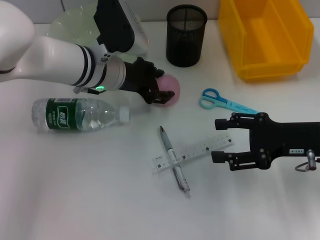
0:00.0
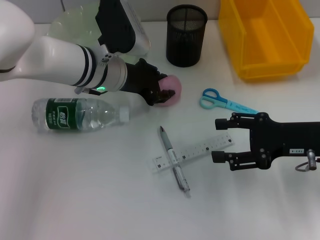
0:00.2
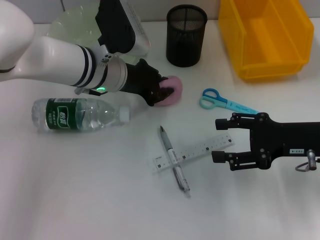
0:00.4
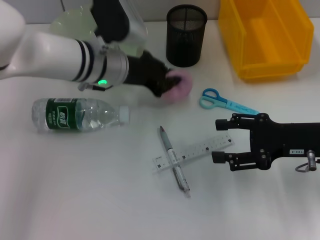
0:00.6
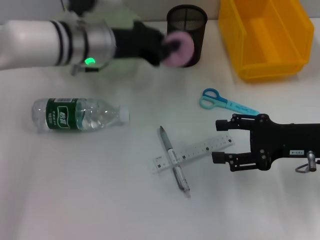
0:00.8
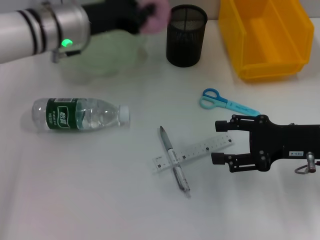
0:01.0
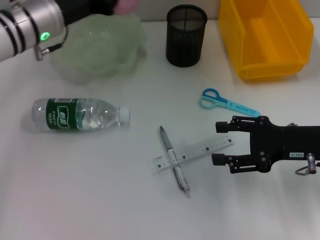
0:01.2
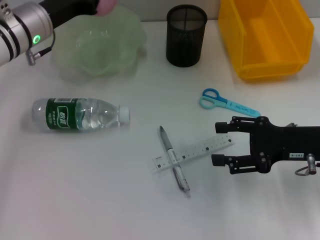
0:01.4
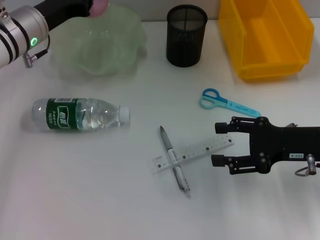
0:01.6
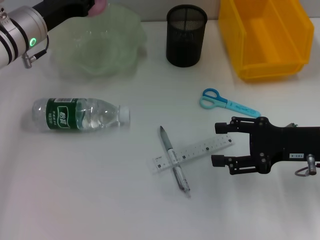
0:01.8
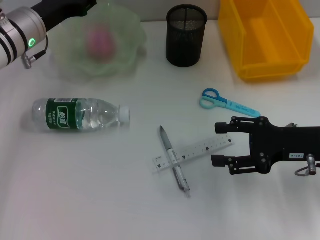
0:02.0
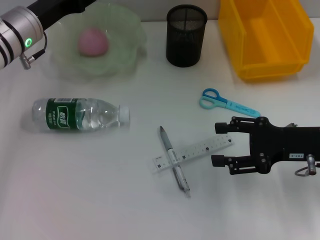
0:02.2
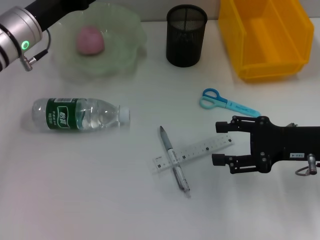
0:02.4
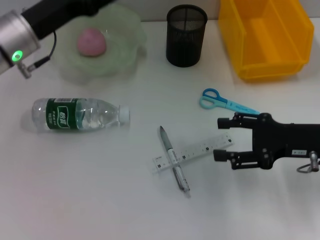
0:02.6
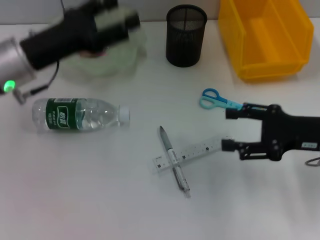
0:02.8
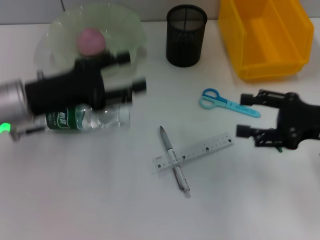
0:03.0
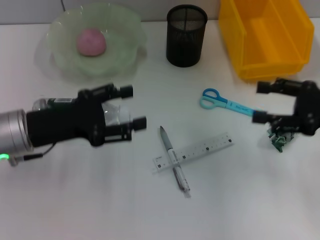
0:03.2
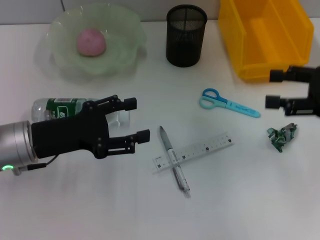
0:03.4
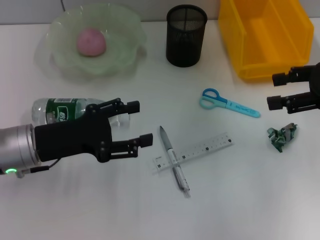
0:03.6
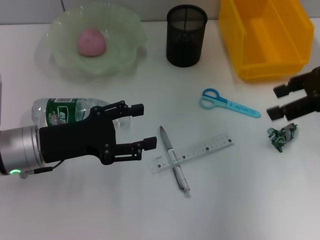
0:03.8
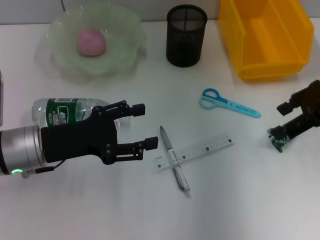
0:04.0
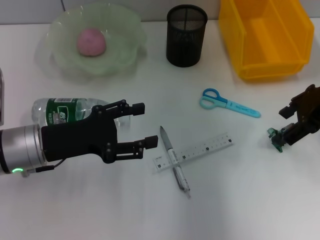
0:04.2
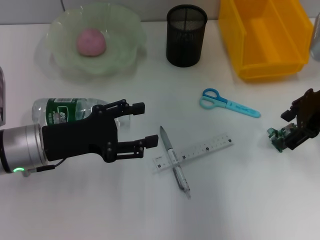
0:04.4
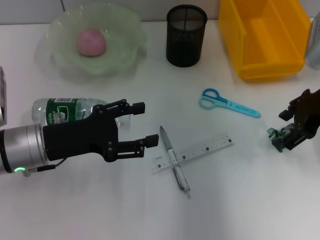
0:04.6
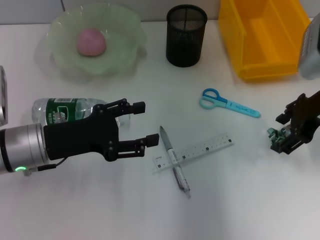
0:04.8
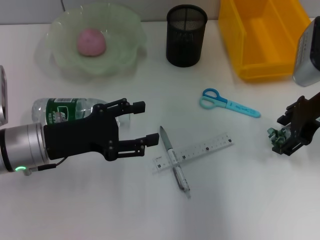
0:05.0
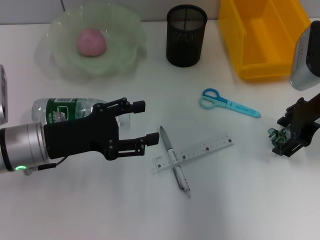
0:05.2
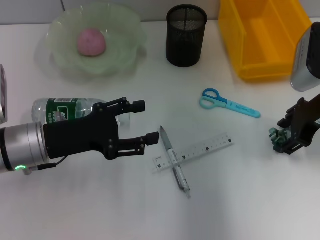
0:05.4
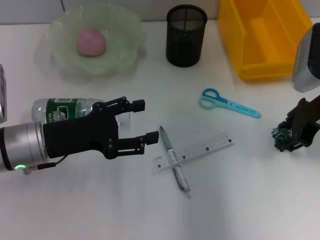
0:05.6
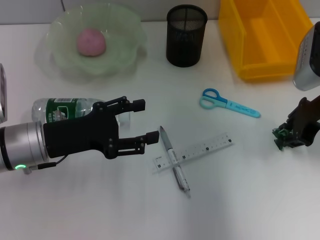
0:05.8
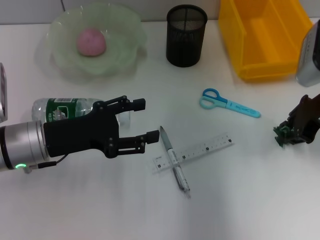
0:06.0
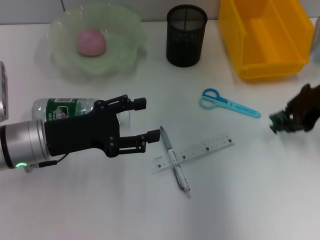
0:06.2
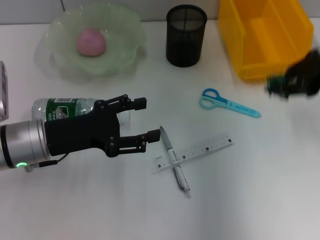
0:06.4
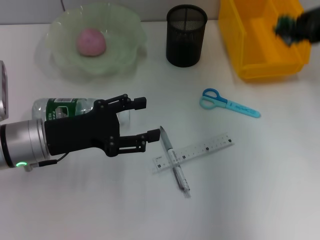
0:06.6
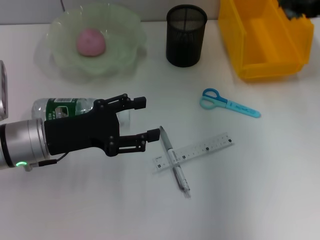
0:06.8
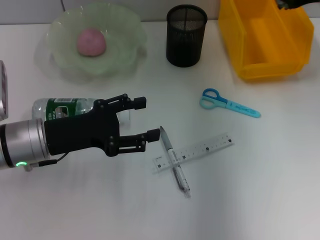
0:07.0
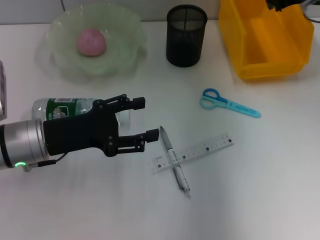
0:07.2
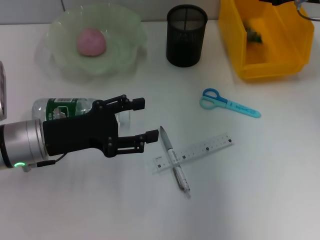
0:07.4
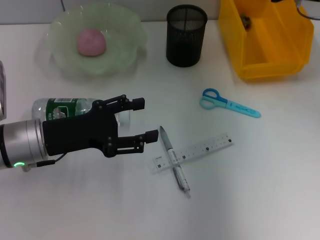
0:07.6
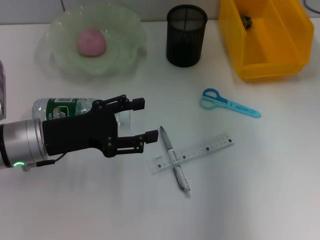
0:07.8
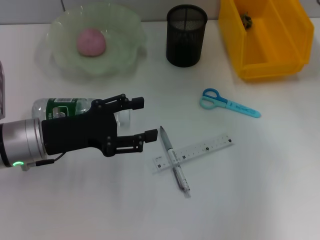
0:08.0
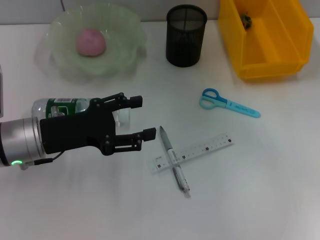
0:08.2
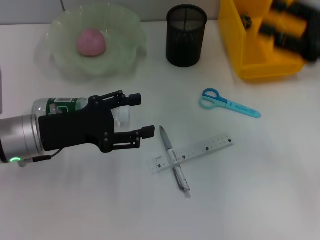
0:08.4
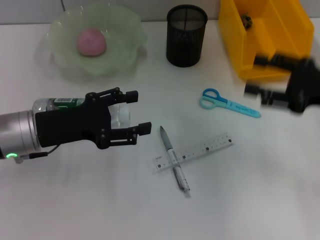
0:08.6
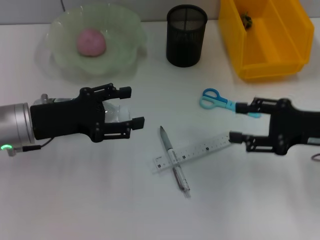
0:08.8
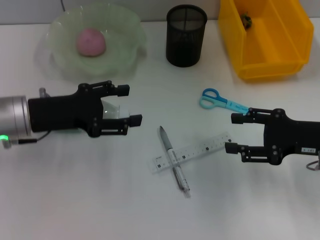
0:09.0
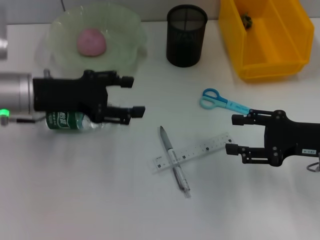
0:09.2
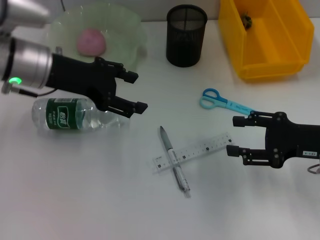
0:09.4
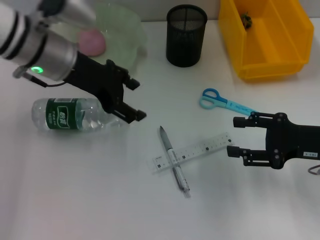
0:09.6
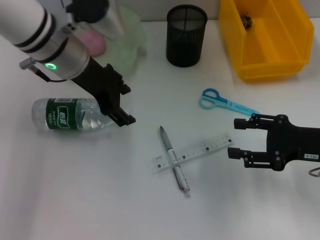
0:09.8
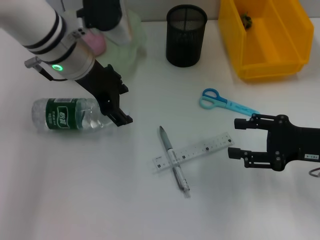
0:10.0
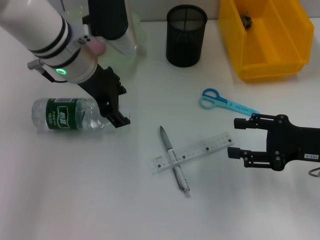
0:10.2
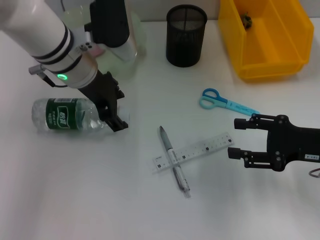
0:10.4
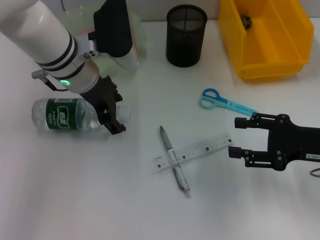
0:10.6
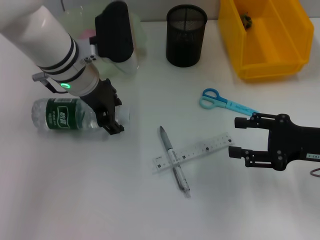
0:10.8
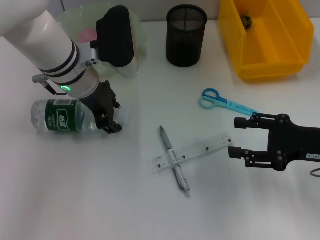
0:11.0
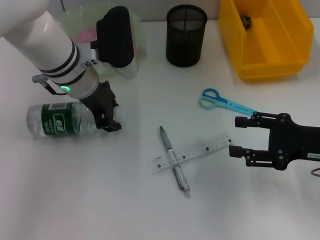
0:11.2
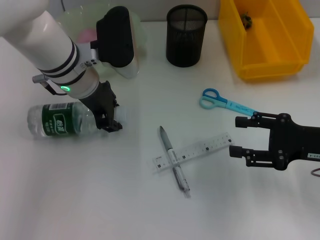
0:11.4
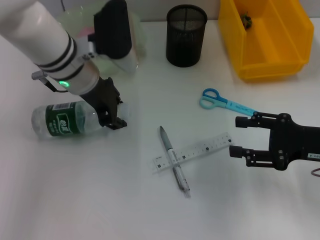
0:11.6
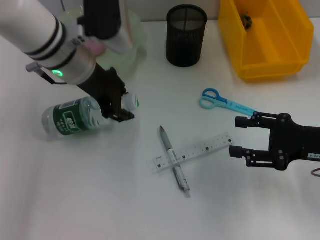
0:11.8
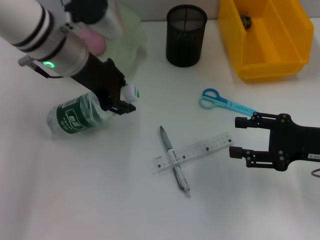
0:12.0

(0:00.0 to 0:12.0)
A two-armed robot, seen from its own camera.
Step, 0:00.2 - 0:02.0: Place the peach into the fruit bowl with the left hand.
Step, 0:02.2 - 0:05.4: Grab the plastic with the right hand.
Step, 0:05.6 - 0:07.4: Place the plastic into the trash can with the right hand.
Step, 0:07.6 - 0:11.0: Grab the water bottle with the left hand.
0:00.0 - 0:01.6: The left gripper is displaced to the left by roughly 10 cm, and closes its fingers.
0:01.6 - 0:03.0: The left gripper shifts about 10 cm backward, and opens its fingers.
0:03.0 - 0:04.4: The left gripper changes place by about 5 cm. The right gripper heads forward and upward, covering approximately 10 cm.
0:04.4 - 0:06.0: The right gripper closes up.
0:06.0 - 0:07.6: The right gripper is displaced forward by roughly 10 cm.
0:07.6 - 0:09.0: The right gripper moves backward and downward, about 20 cm.
0:09.0 - 0:10.4: The left gripper is displaced to the right, forward and upward by about 15 cm.
0:10.4 - 0:12.0: The left gripper closes up.

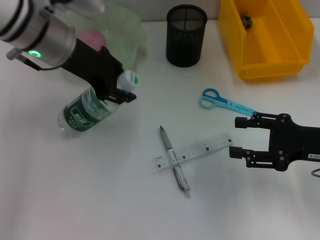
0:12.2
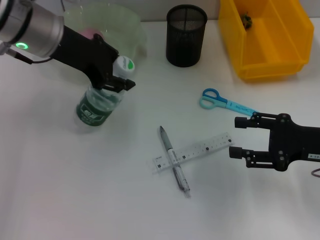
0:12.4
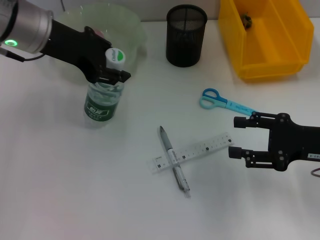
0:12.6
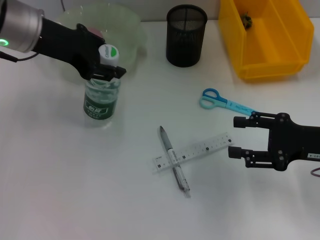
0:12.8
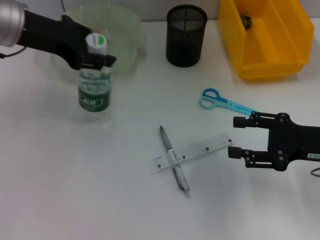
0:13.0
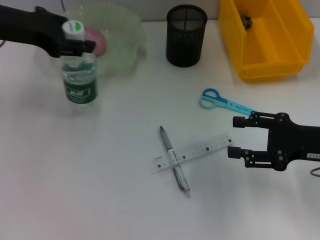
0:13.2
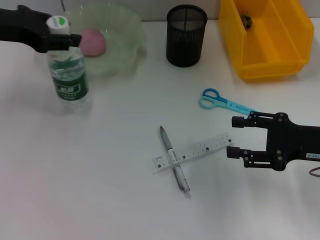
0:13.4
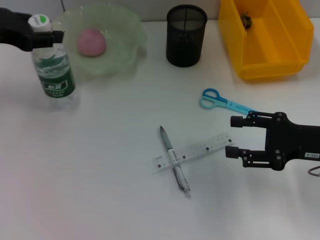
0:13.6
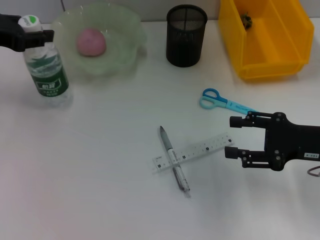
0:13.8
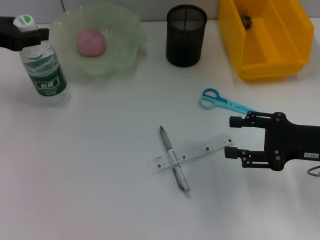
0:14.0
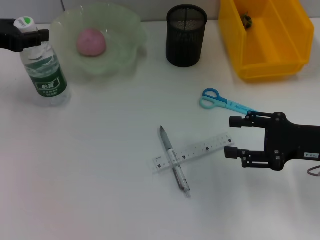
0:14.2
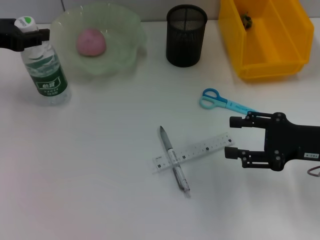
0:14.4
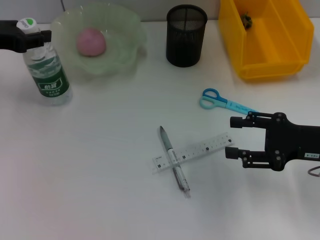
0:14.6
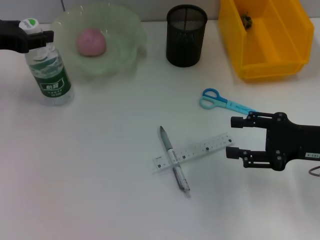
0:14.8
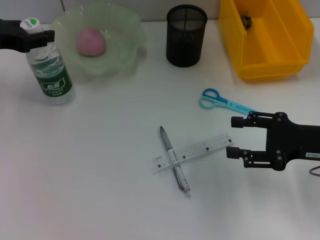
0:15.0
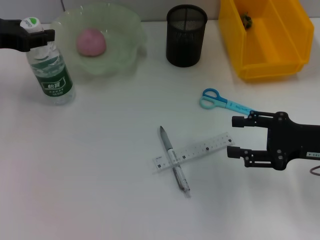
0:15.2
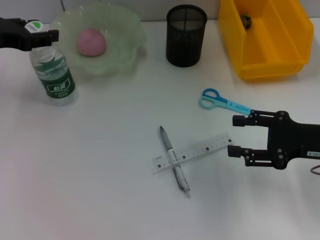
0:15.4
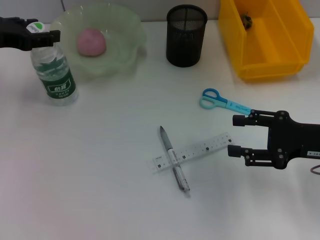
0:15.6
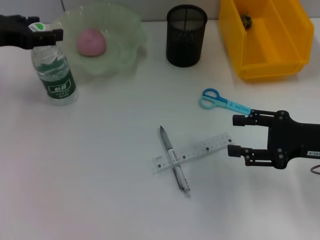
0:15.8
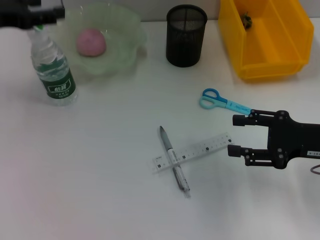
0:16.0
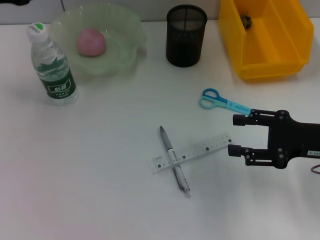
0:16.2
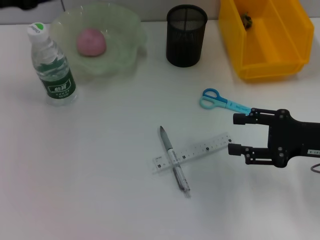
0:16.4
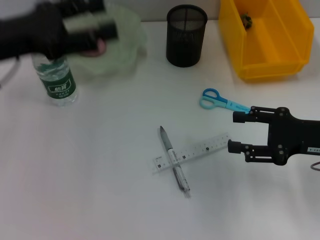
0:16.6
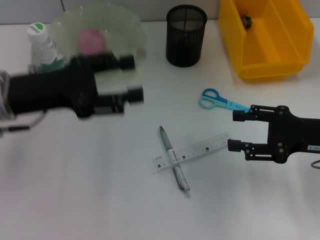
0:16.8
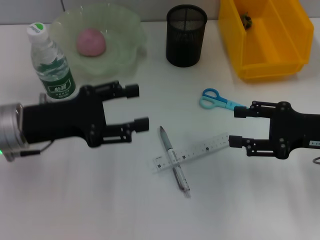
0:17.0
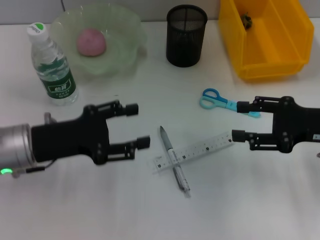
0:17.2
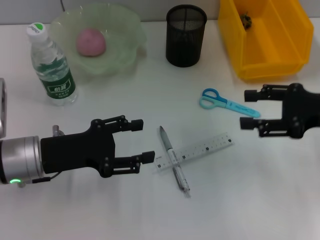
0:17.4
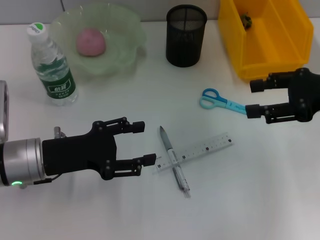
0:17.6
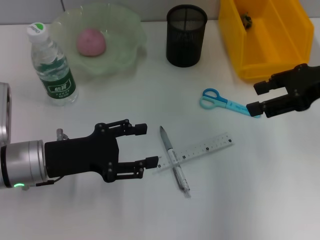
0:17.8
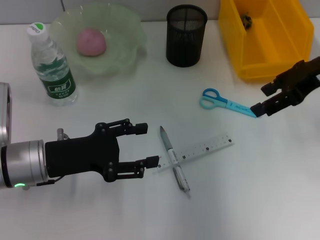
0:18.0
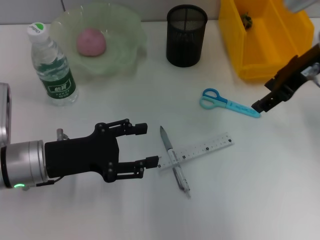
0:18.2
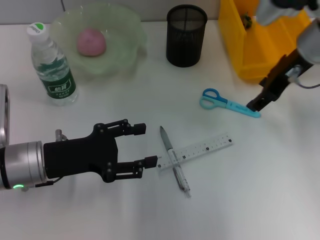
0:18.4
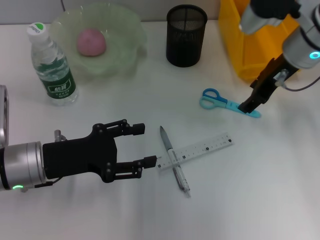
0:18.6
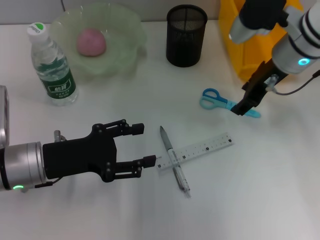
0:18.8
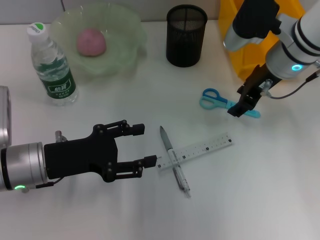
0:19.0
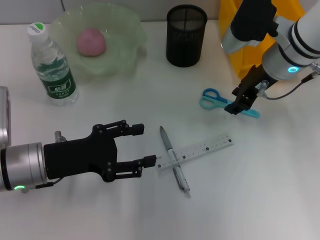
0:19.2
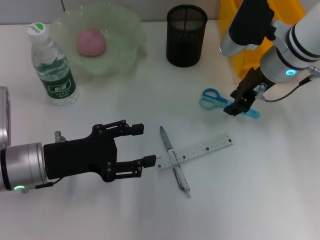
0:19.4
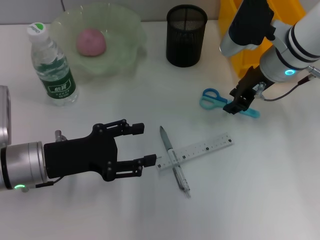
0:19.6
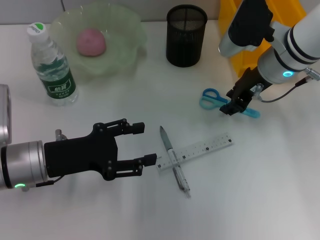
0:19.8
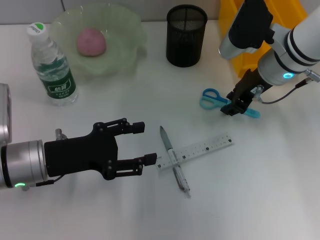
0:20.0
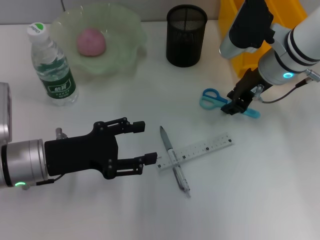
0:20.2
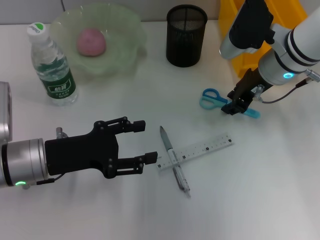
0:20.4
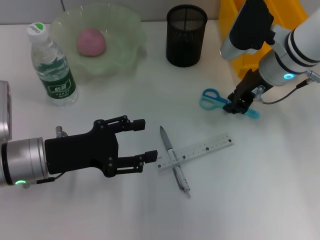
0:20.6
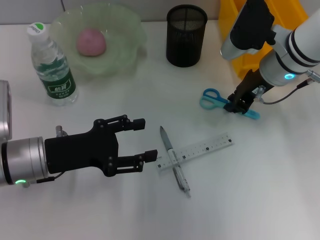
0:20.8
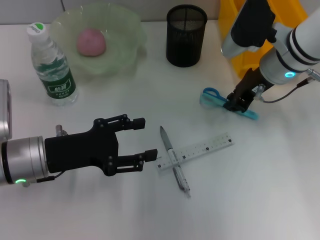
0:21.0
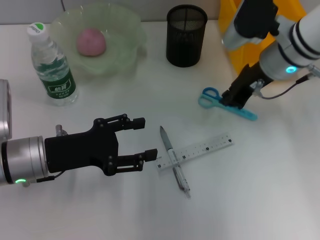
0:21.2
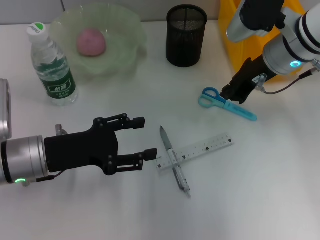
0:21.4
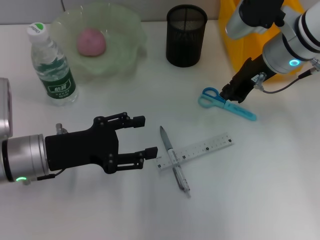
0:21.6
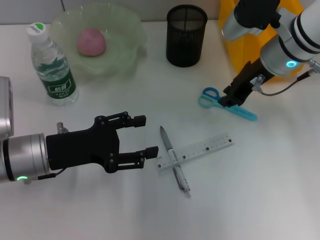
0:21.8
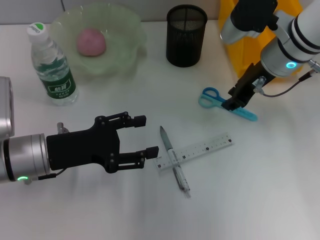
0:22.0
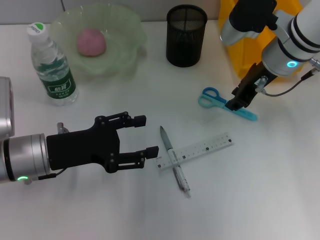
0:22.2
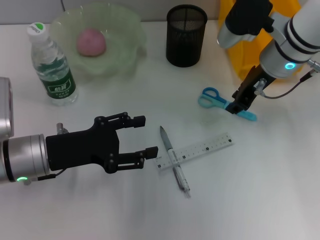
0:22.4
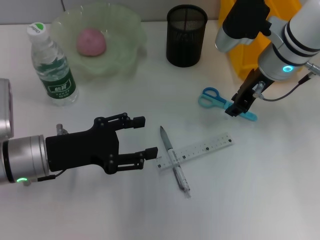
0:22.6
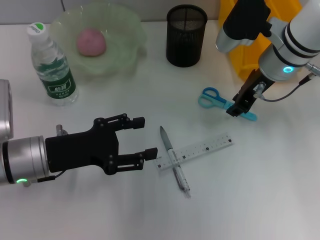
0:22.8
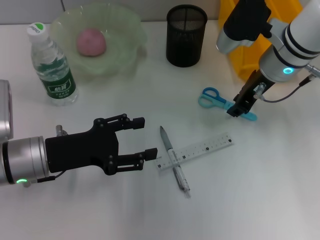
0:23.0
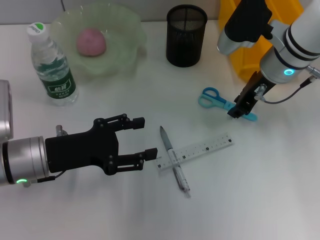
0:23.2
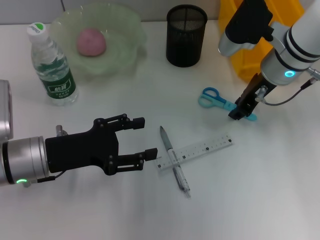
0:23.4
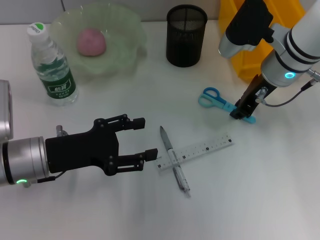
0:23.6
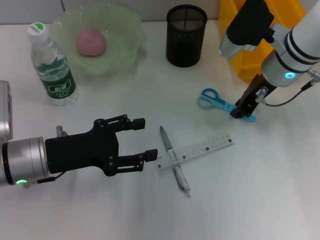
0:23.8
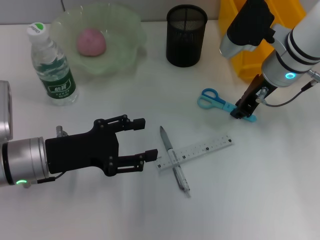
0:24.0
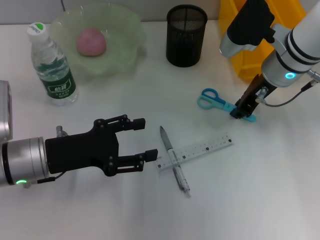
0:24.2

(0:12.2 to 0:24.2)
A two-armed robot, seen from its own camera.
Step, 0:12.2 - 0:15.8: Place the water bottle on the table with the left hand.
0:12.2 - 0:13.8: The left gripper heads to the left, covering some 15 cm.
0:13.8 - 0:15.2: The grippers move only a little.
0:15.2 - 0:16.6: The left gripper heads backward, covering about 5 cm, and opens up.
0:16.6 - 0:18.2: The left gripper is displaced downward and backward by about 15 cm; the right gripper heads upward, forward and to the left, covering approximately 15 cm.
0:18.2 - 0:19.8: The right gripper shifts approximately 10 cm downward and to the left, and closes its fingers.
0:19.8 - 0:21.2: The right gripper closes its fingers.
0:21.2 - 0:24.2: The grippers make only small movements.
